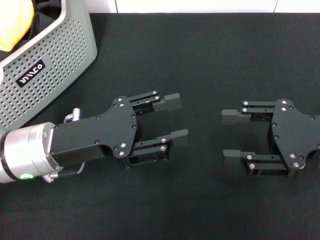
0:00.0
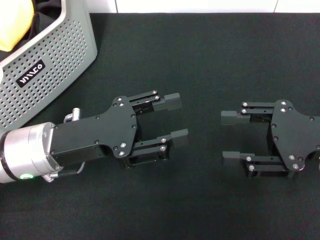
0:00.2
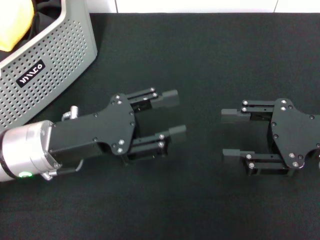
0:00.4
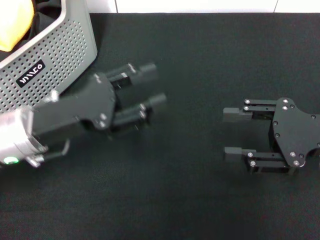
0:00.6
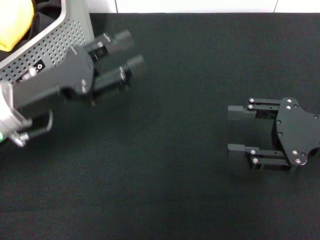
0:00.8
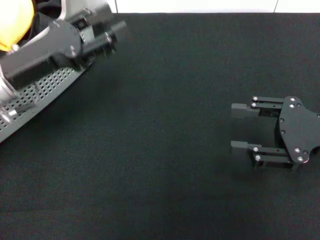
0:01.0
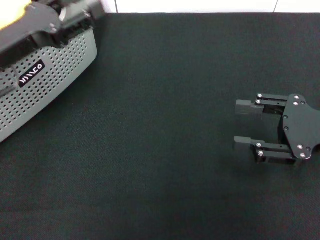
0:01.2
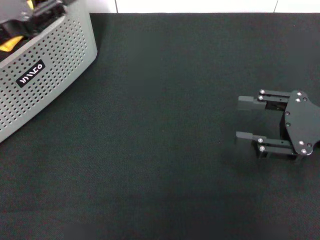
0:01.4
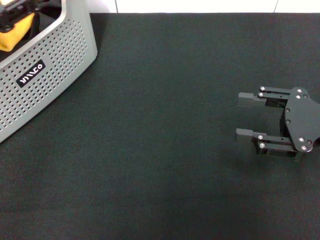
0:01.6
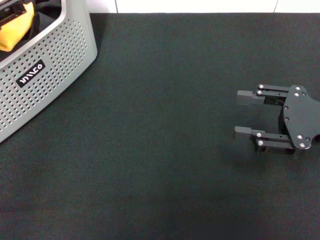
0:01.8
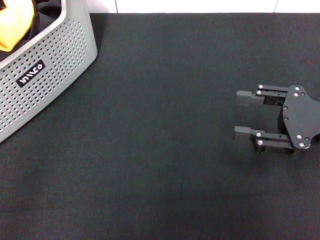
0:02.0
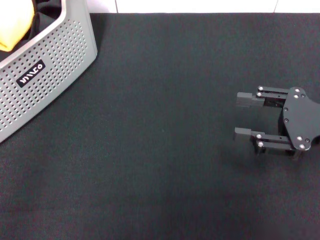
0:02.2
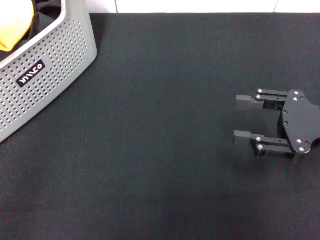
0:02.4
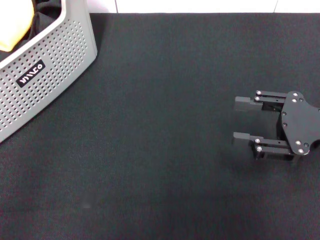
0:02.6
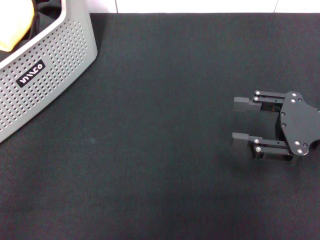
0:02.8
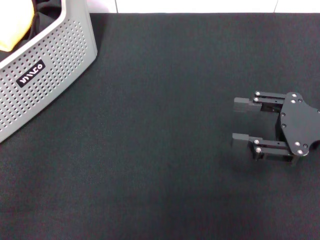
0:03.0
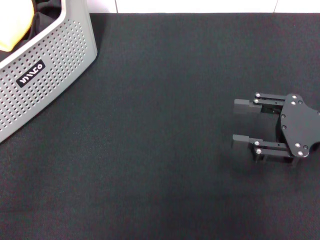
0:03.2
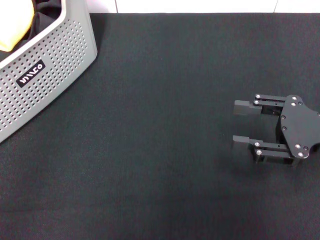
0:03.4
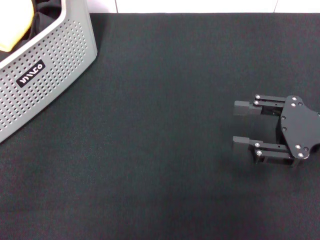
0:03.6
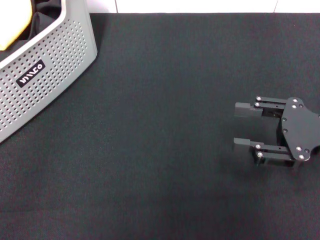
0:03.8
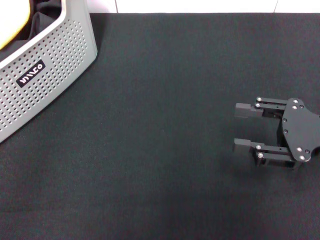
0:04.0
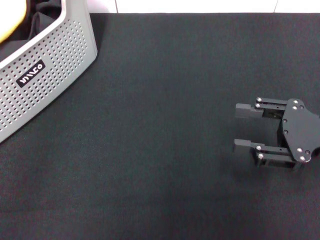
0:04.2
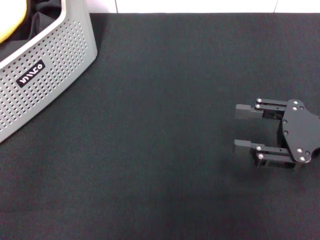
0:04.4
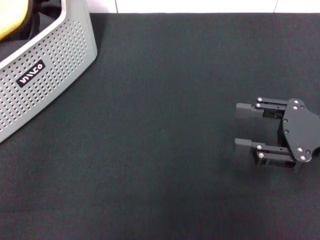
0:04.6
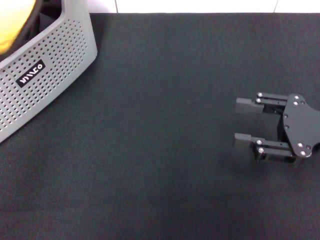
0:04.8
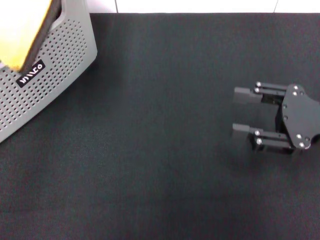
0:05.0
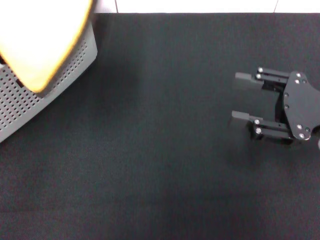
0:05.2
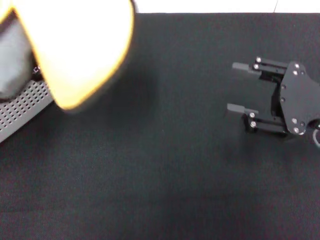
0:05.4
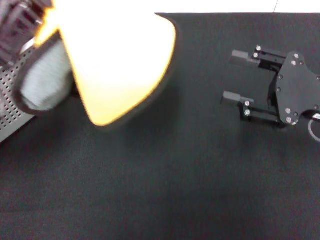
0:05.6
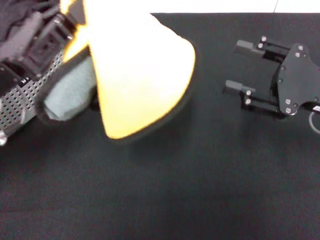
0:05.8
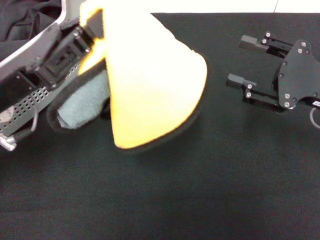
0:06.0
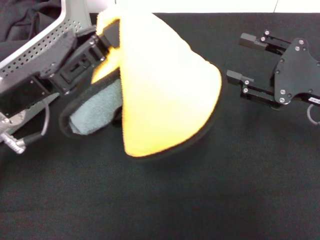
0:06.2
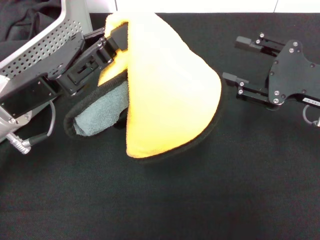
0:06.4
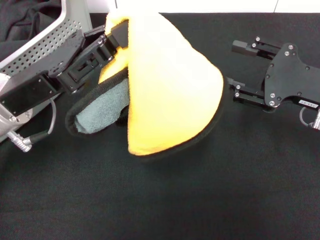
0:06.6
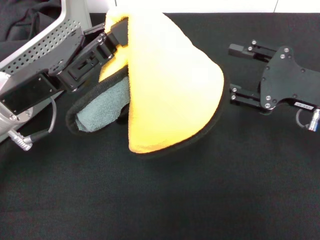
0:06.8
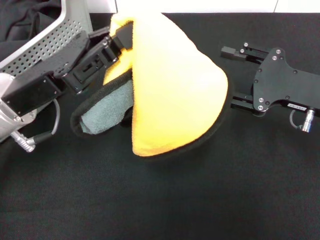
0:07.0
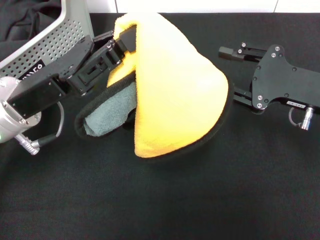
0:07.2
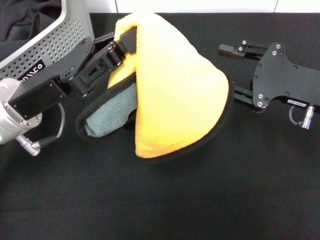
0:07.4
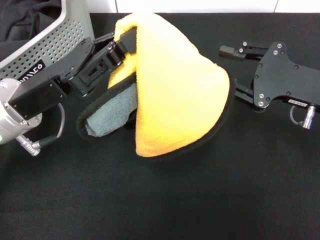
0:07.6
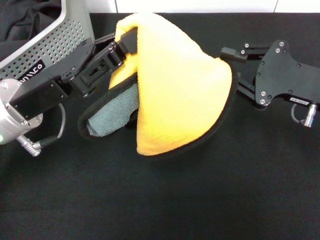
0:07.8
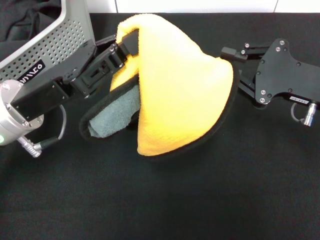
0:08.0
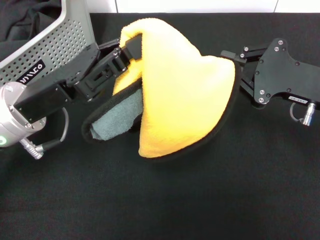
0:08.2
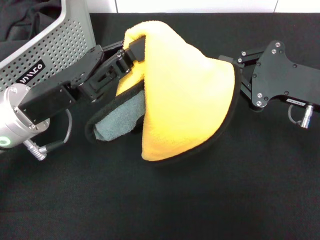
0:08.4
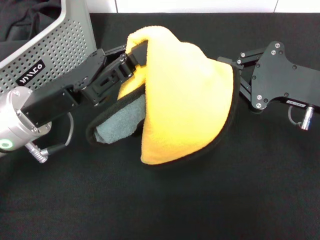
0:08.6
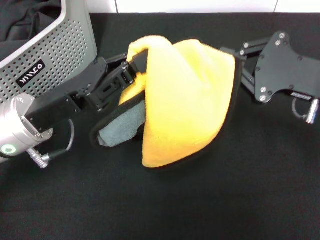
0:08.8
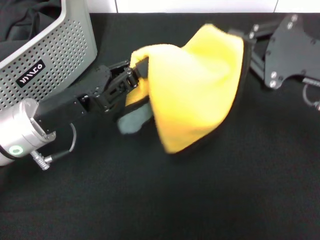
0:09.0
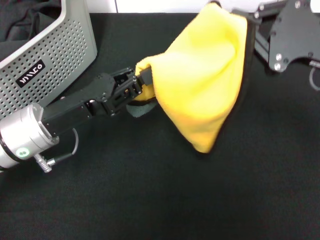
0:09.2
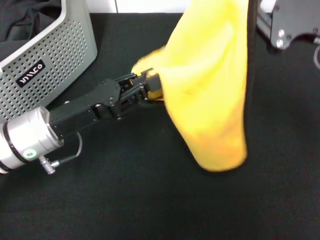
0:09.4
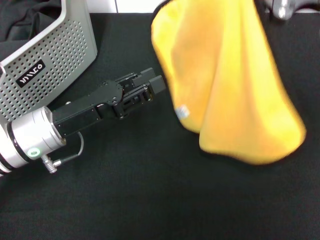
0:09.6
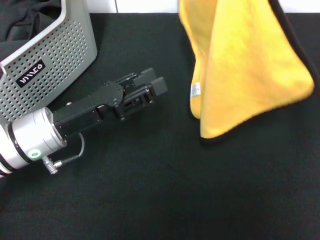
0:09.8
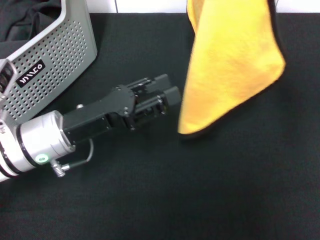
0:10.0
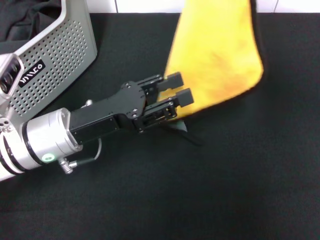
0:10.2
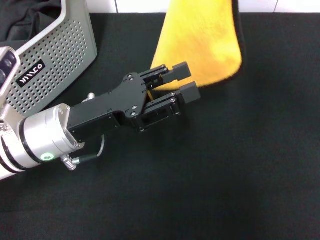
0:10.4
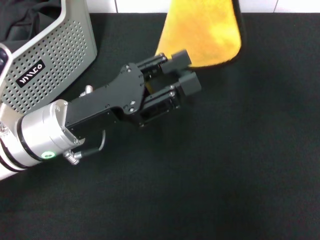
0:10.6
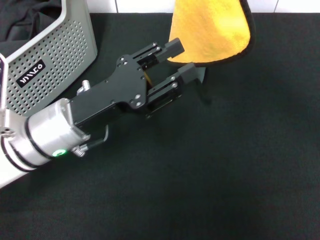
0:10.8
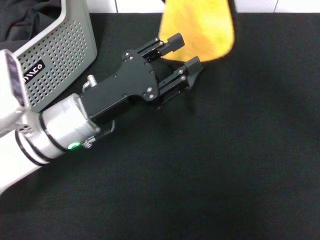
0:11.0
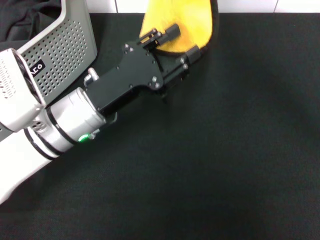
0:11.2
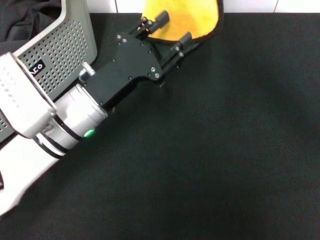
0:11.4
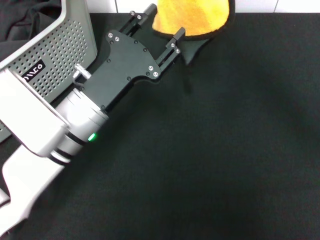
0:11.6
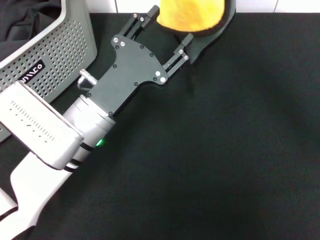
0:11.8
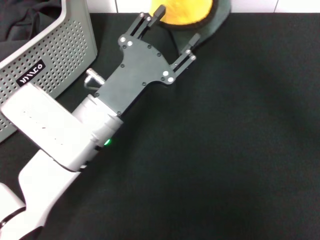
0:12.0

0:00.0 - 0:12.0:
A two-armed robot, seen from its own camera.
Task of the whole recording: pick up the towel from the storage box and lay it flat on the black tablecloth.
Step, 0:00.0 - 0:04.0: Pick up a towel with the left gripper.
Step, 0:04.2 - 0:08.2: Spread the towel flat with the left gripper.
0:00.0 - 0:01.6: The left gripper travels to the left and upward by roughly 15 cm.
0:01.6 - 0:03.0: The left gripper shifts about 10 cm to the left and backward.
0:03.0 - 0:04.4: The left gripper shifts by approximately 5 cm, and closes.
0:04.4 - 0:06.0: The left gripper heads to the right, covering some 15 cm.
0:07.6 - 0:09.0: The right gripper closes its fingers.
0:09.0 - 0:10.4: The right gripper travels upward and to the left by roughly 15 cm; the left gripper opens up.
0:10.4 - 0:12.0: The right gripper goes some 5 cm to the left; the left gripper changes place by some 5 cm.

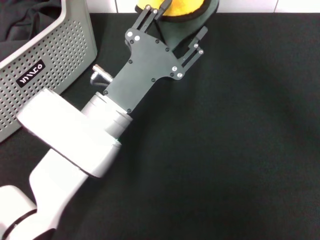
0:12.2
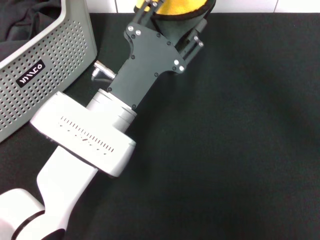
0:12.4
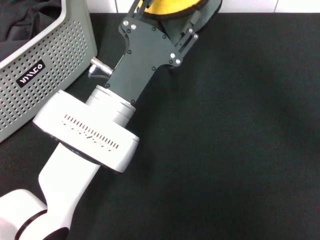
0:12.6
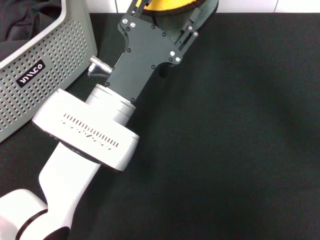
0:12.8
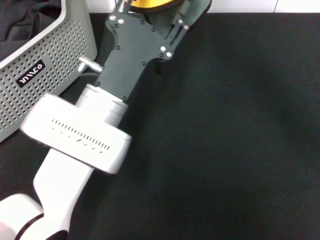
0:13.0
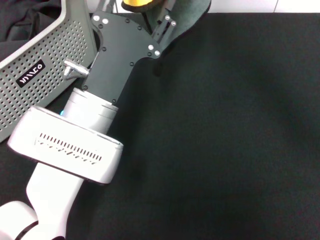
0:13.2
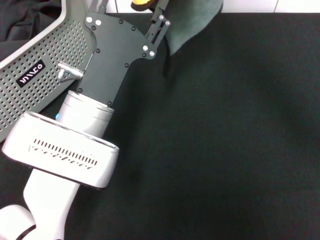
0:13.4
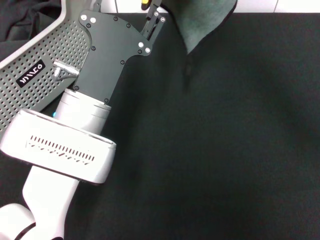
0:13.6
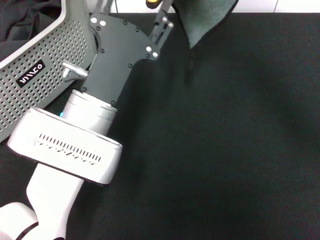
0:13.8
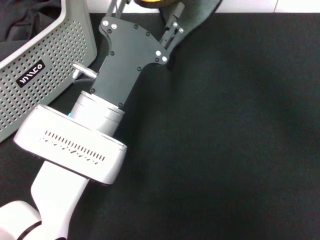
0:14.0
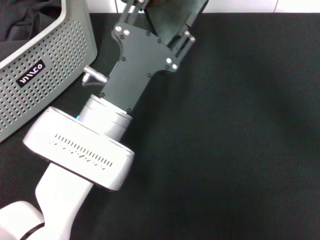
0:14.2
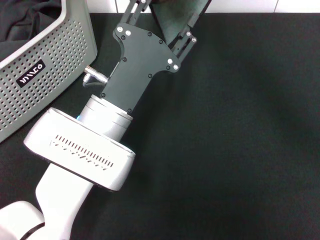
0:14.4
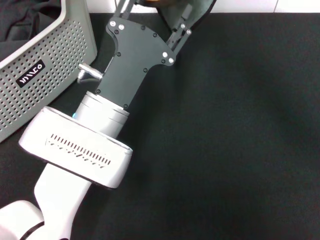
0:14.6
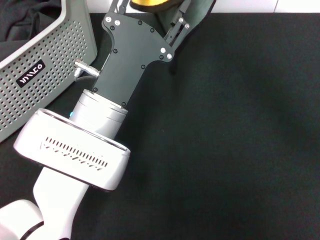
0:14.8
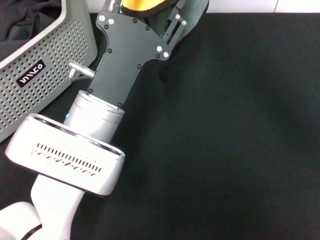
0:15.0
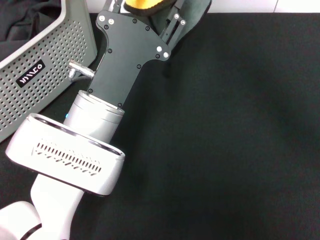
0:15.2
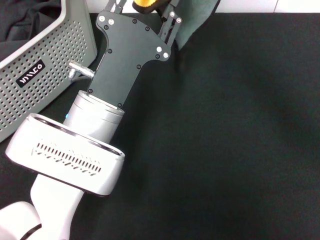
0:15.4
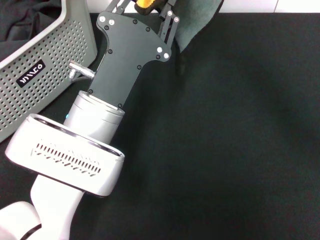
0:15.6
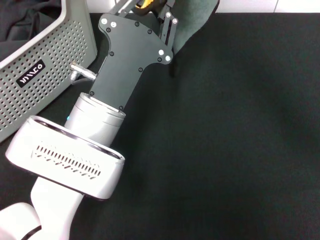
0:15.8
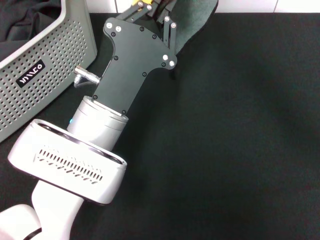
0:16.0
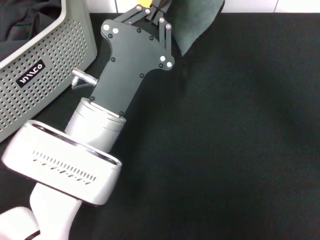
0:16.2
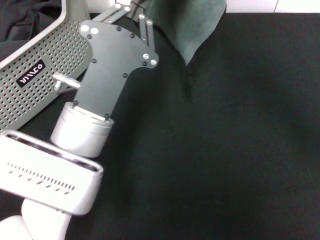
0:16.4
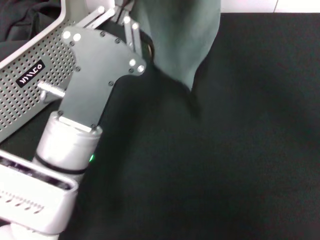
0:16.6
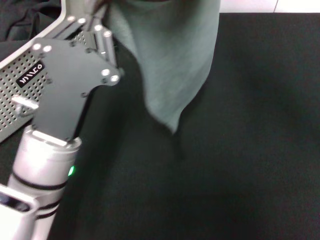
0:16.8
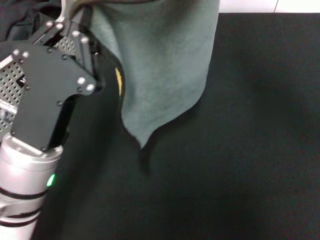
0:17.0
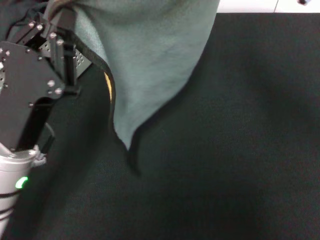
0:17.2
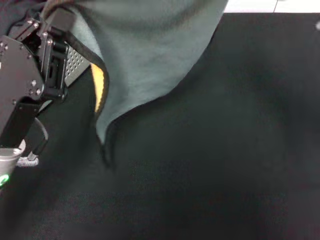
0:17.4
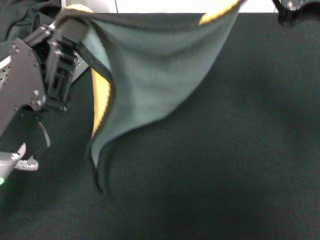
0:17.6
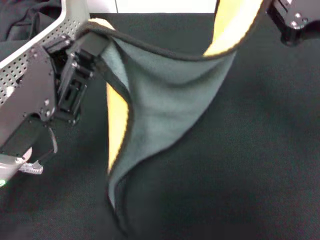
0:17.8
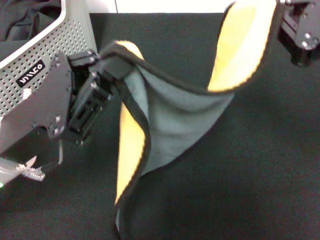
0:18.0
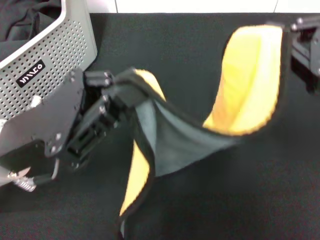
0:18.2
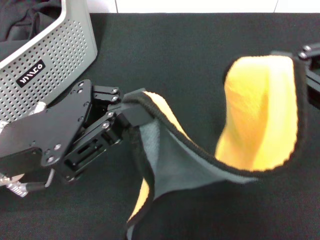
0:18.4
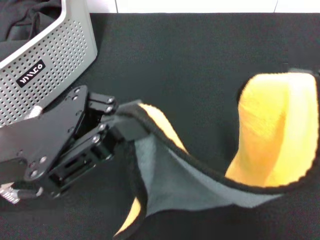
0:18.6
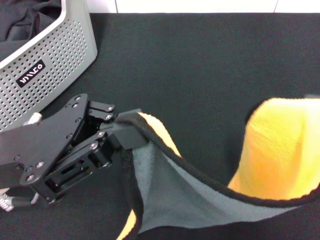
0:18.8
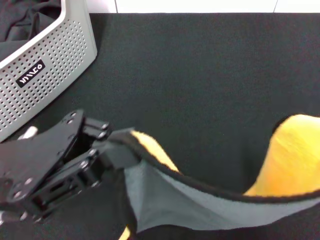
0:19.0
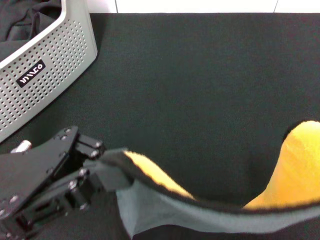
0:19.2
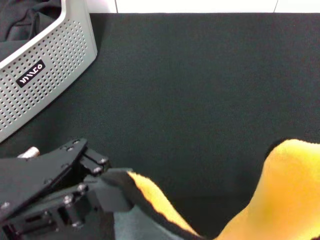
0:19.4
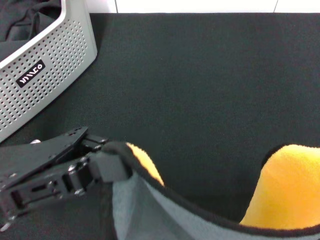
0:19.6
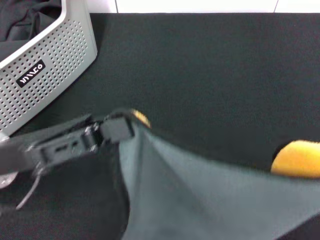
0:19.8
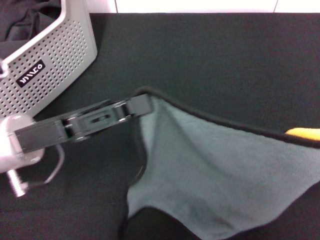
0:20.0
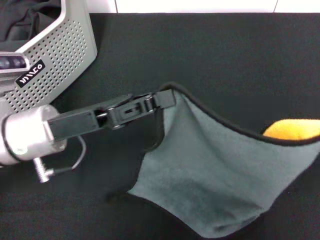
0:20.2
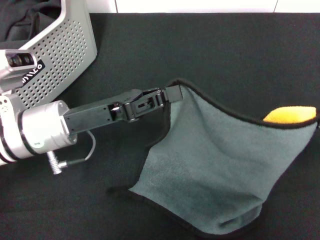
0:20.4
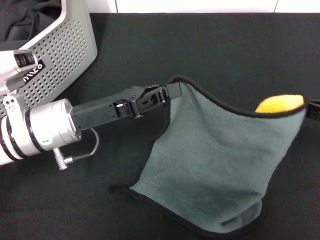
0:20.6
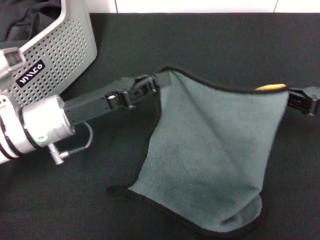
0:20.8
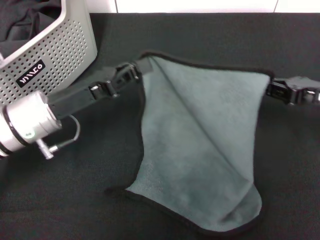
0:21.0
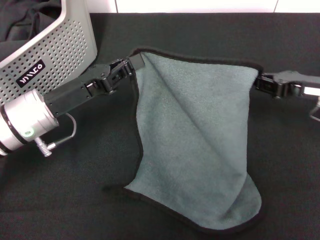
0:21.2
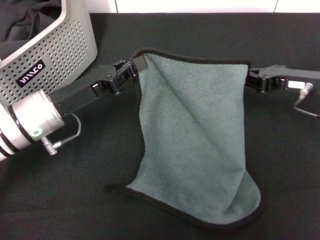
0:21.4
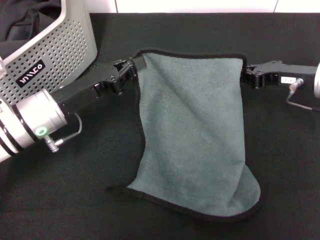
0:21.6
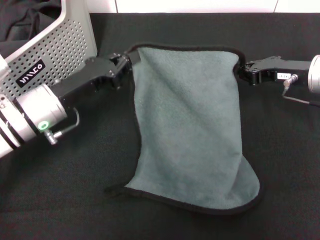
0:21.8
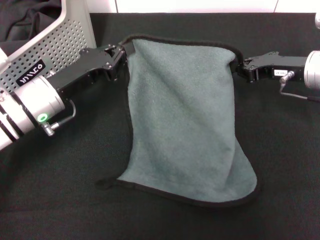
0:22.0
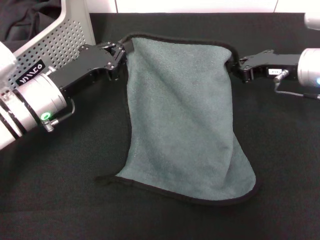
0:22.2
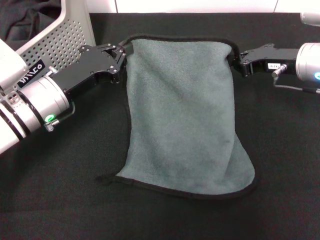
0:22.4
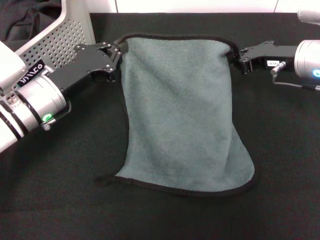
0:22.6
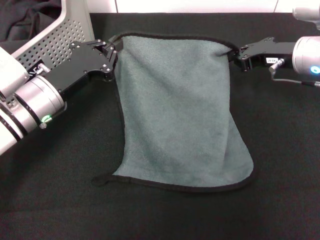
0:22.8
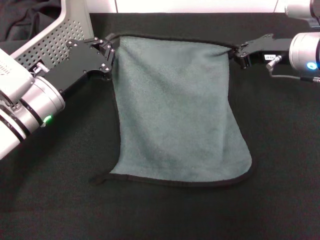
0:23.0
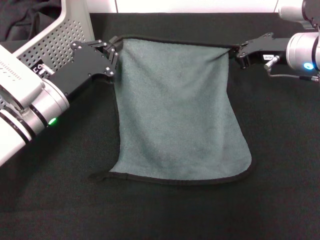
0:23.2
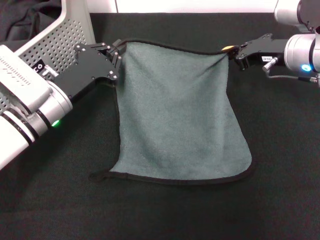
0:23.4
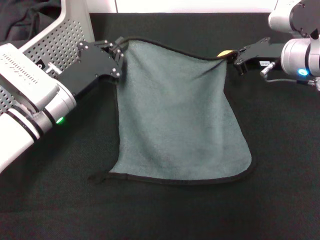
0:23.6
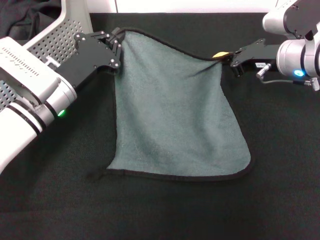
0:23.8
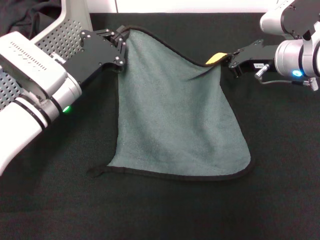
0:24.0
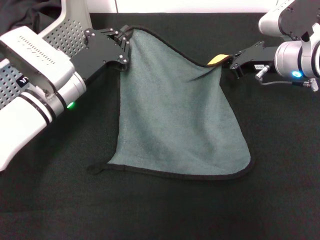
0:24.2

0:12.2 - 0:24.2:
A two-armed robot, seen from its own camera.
Task of the whole recording: pick up the towel from the storage box and lay it flat on the black tablecloth.
0:13.8 - 0:15.2: The grippers stay close to where they were, moving slightly.
0:15.2 - 0:16.6: The left gripper closes up, while the right gripper shifts by some 5 cm.
0:16.6 - 0:18.2: The left gripper is displaced to the left by some 10 cm. The right gripper goes some 15 cm to the right and backward.
0:18.2 - 0:19.8: The right gripper shifts some 10 cm backward and to the right.
0:19.8 - 0:21.2: The left gripper moves forward and downward, about 10 cm, while the right gripper moves forward and downward, roughly 25 cm.
0:21.2 - 0:22.6: The right gripper is displaced forward and to the left by approximately 10 cm.
